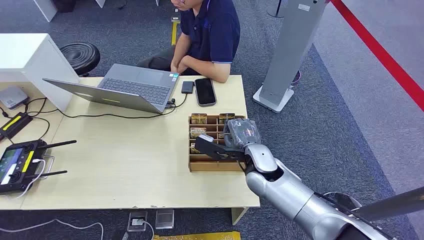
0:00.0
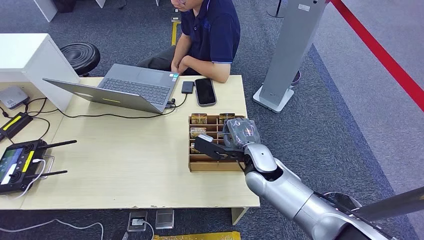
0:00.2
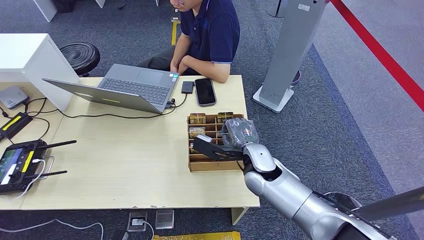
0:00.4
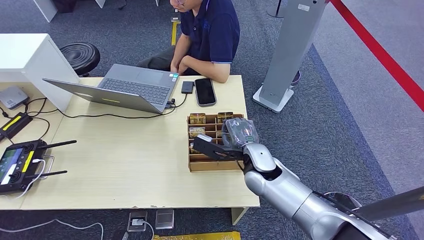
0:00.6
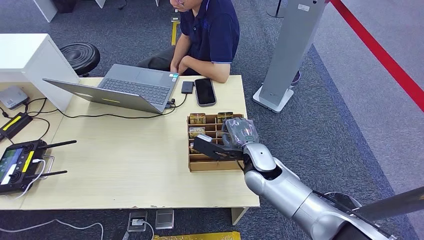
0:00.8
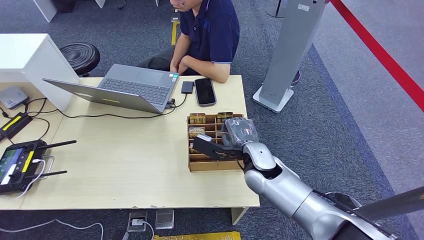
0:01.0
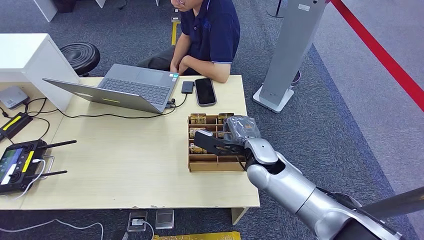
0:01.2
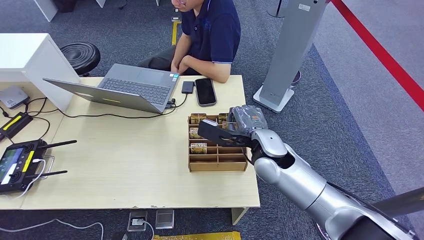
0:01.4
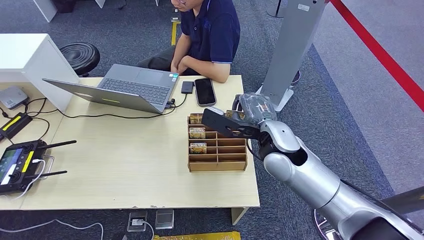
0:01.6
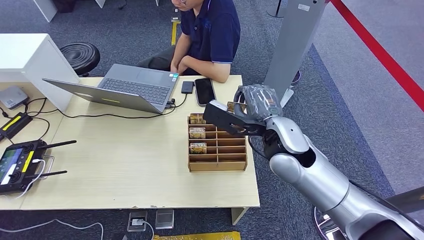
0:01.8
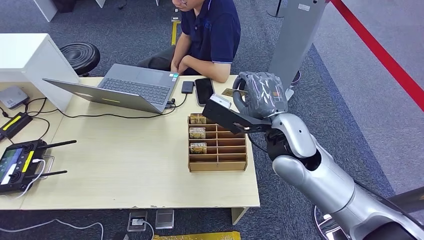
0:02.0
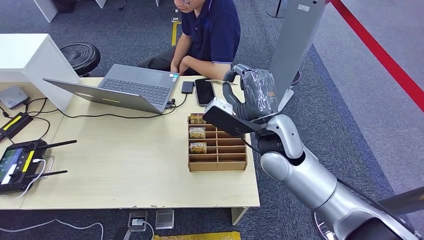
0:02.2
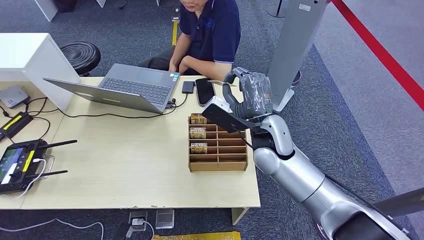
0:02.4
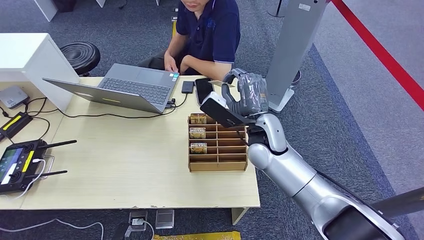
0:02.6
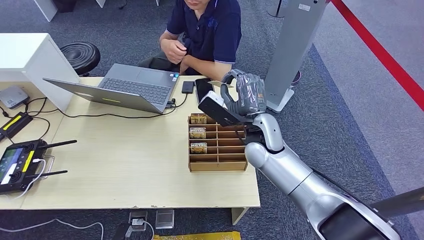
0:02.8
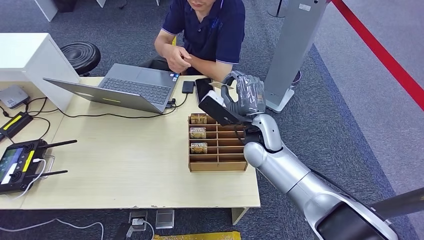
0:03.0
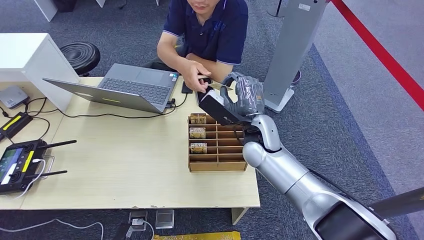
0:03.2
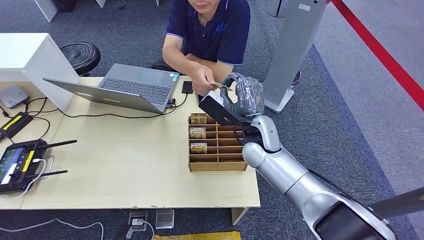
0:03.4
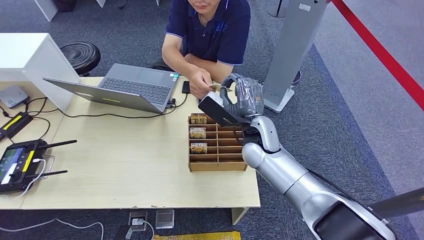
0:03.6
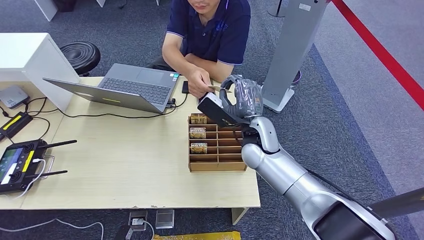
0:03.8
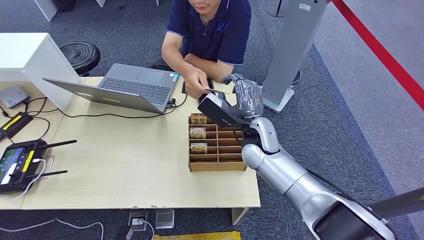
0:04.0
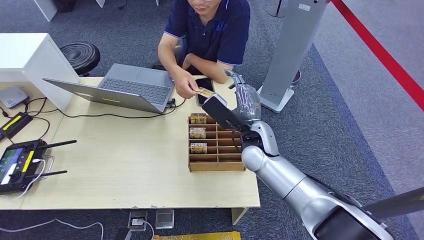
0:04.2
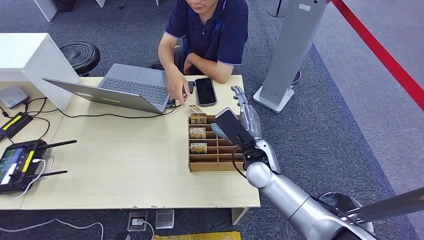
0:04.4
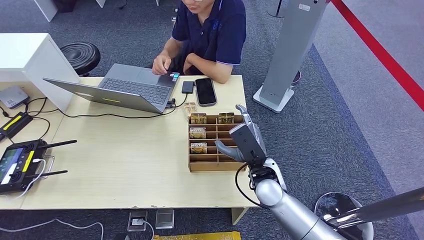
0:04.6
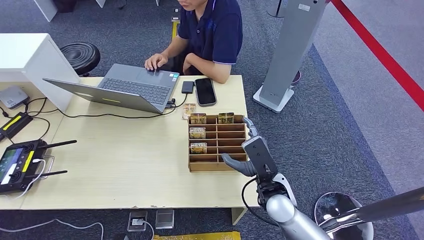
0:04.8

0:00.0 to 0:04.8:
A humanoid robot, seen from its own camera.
Step, 0:00.0 to 0:01.6: Pick up the key card from the card box.
Step, 0:02.2 to 0:04.8: Hand the key card to the target.
0:01.6 to 0:03.2: The right hand moves approximately 5 cm.
0:03.2 to 0:04.8: The right hand goes roughly 15 cm backward and downward.
